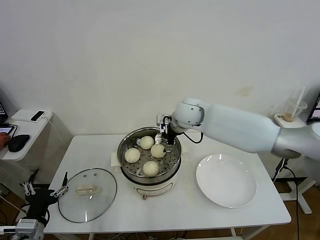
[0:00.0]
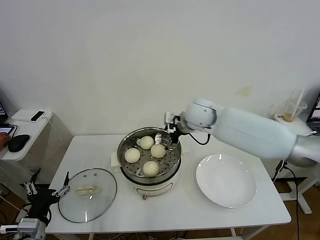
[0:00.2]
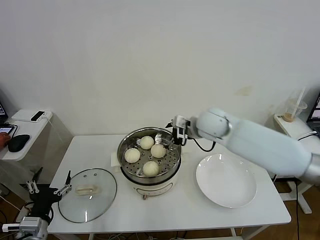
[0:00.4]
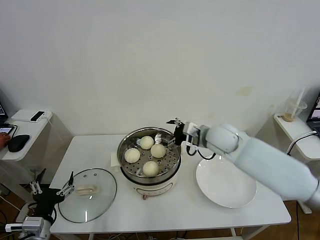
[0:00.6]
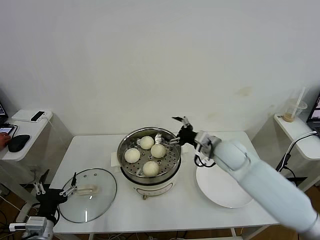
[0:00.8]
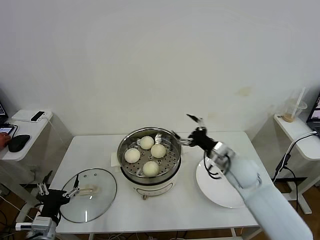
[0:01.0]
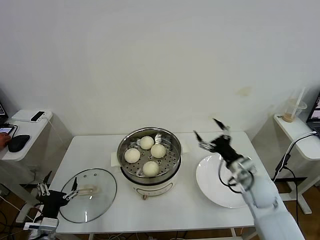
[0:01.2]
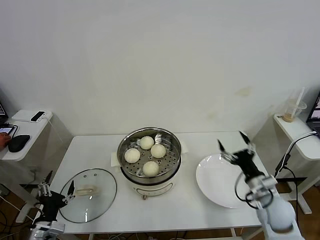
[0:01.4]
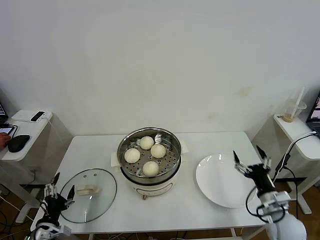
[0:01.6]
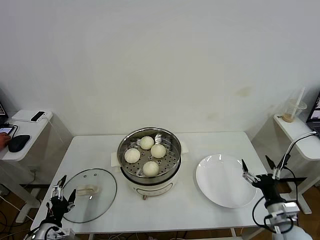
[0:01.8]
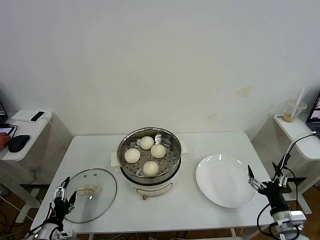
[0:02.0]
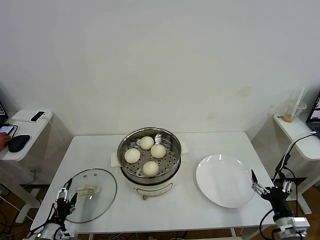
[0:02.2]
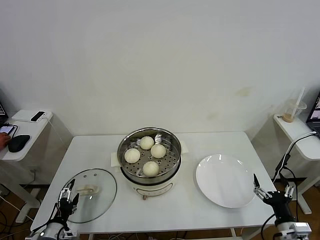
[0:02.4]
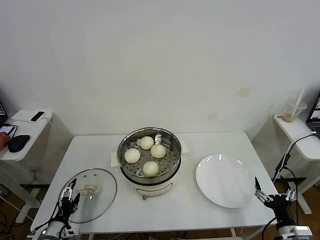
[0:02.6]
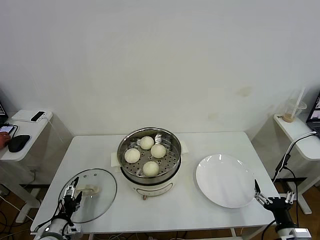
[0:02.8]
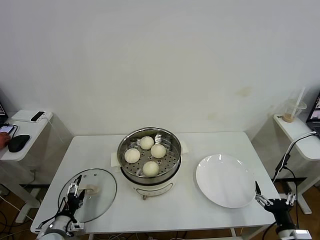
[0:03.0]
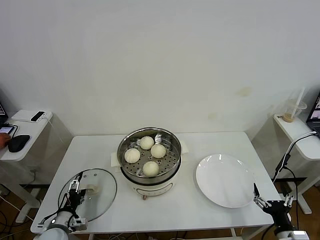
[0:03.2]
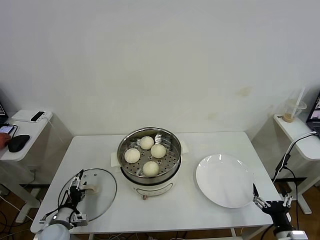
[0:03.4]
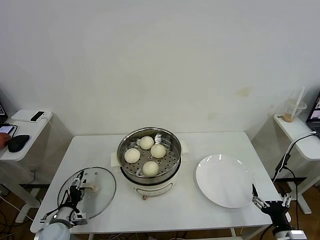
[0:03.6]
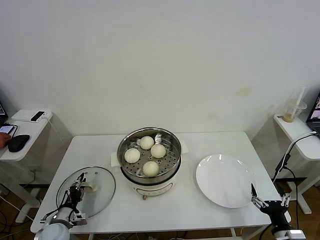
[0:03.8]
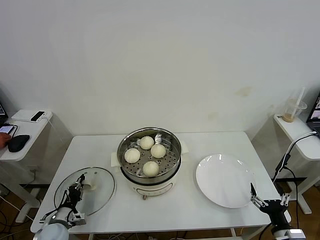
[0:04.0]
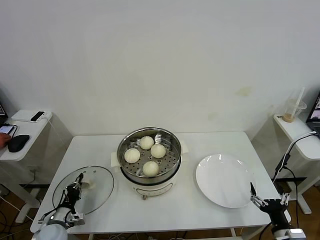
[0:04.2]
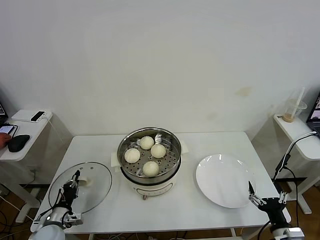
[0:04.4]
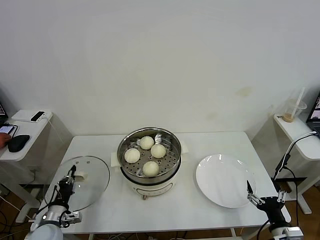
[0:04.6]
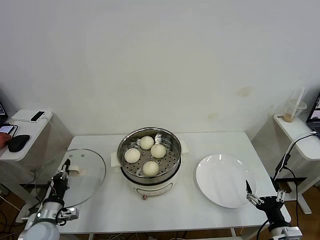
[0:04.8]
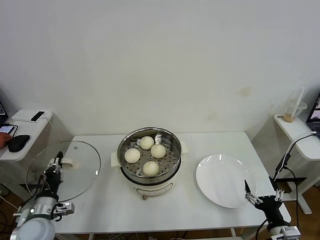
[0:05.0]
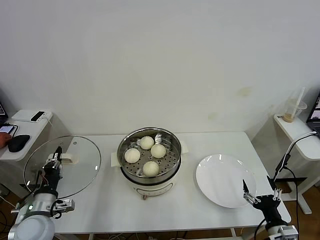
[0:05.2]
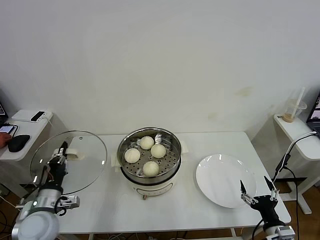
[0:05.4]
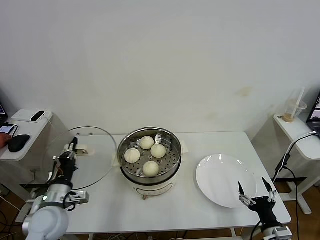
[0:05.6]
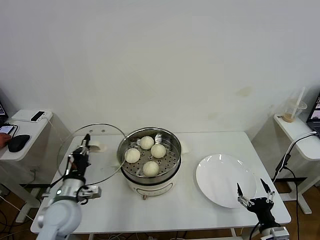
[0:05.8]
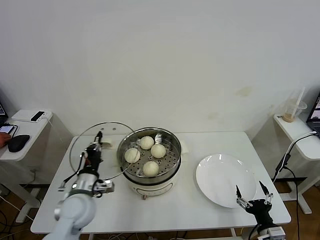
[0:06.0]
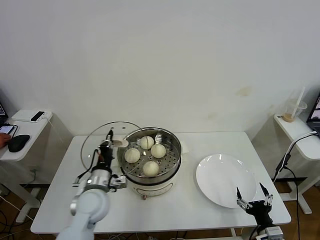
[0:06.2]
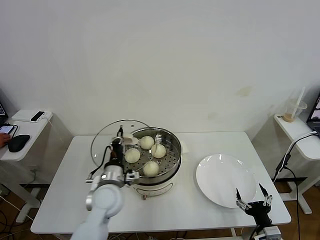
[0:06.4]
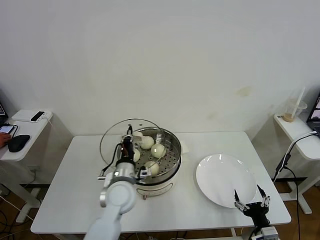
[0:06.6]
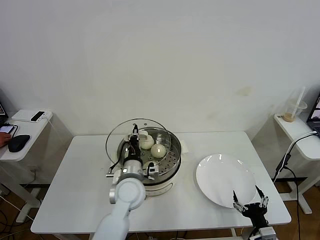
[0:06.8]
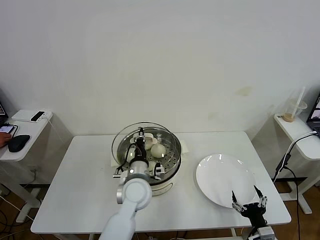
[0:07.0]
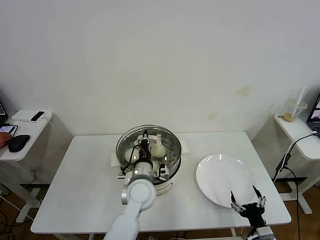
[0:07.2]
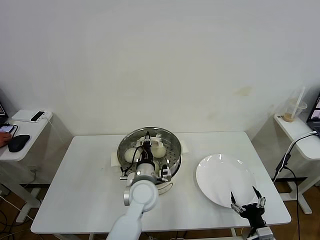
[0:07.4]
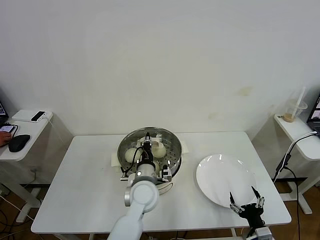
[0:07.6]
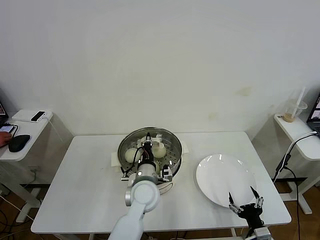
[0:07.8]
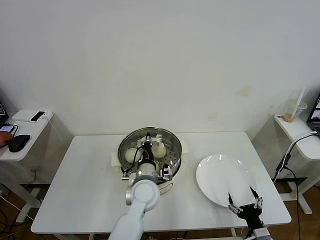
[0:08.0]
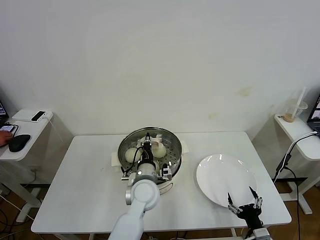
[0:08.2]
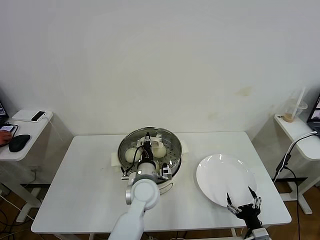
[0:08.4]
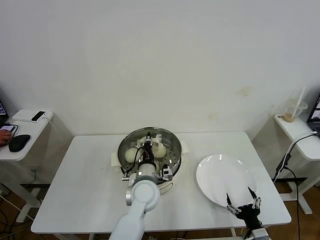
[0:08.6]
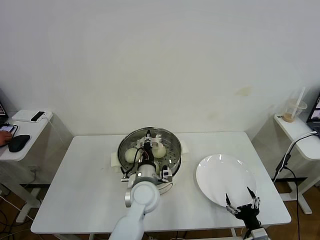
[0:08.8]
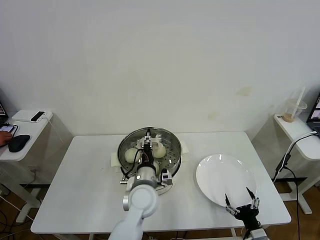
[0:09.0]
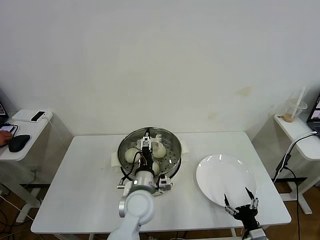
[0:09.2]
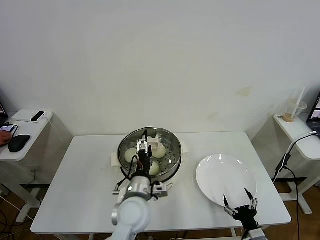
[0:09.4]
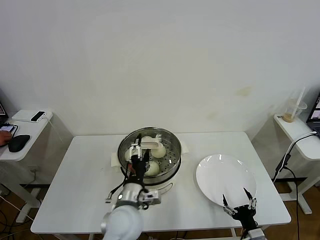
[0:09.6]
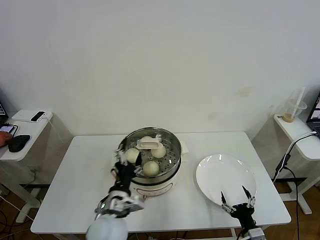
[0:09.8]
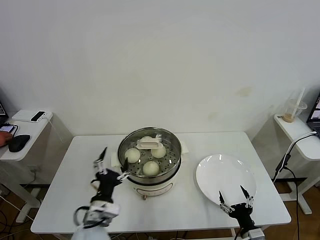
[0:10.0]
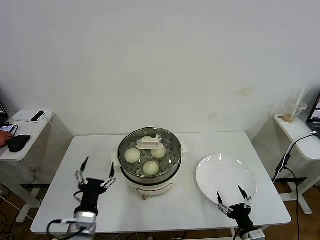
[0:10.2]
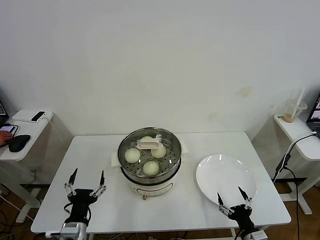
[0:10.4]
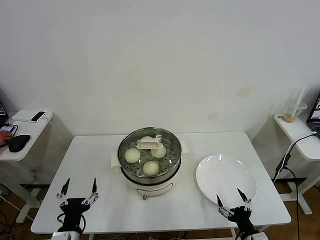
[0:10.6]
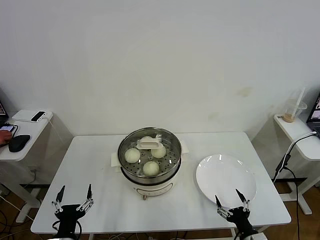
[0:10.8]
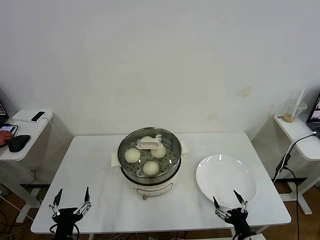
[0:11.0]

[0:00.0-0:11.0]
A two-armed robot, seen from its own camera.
Task of the whole recording: take steamed baozi put them in steamer then cover it.
Step, 0:00.0 to 0:04.2: Grasp the pot lid with left gripper.
Step, 0:04.4 to 0:09.4: Place the pot lid on the steamer with left gripper.
0:00.0 to 0:01.6: The right gripper is displaced backward, to the right and downward by about 40 cm; the left gripper is displaced downward by some 5 cm.
0:01.6 to 0:03.2: The right gripper goes about 10 cm backward. Meanwhile the left gripper travels downward and forward by approximately 10 cm.
0:03.2 to 0:04.8: The left gripper shifts some 5 cm upward, and closes its fingers.
0:04.8 to 0:06.2: The left gripper moves to the right, upward and forward, about 20 cm.
0:06.2 to 0:07.8: The left gripper moves to the right, roughly 15 cm.
0:07.8 to 0:09.4: The left gripper goes about 5 cm backward, and opens.
0:09.4 to 0:11.0: The left gripper travels to the left and backward by some 25 cm.
